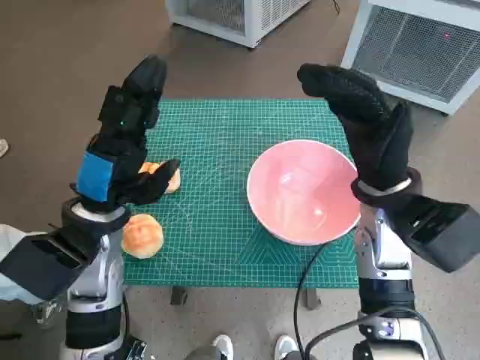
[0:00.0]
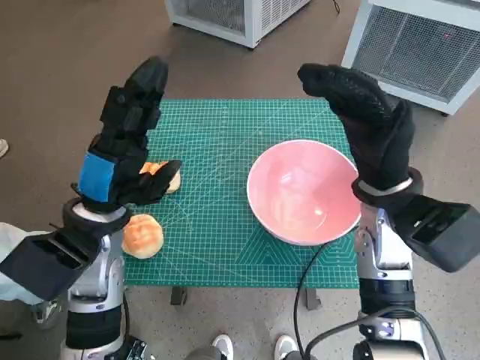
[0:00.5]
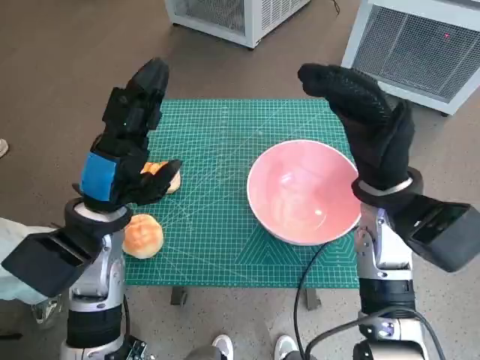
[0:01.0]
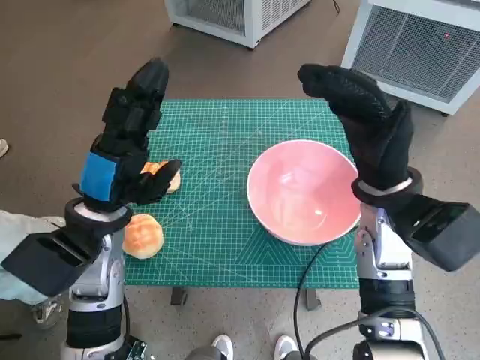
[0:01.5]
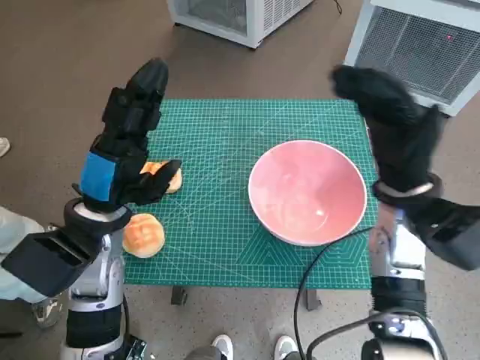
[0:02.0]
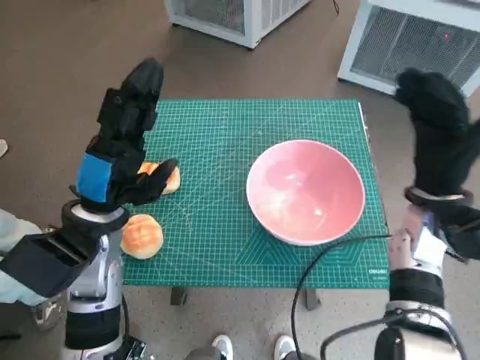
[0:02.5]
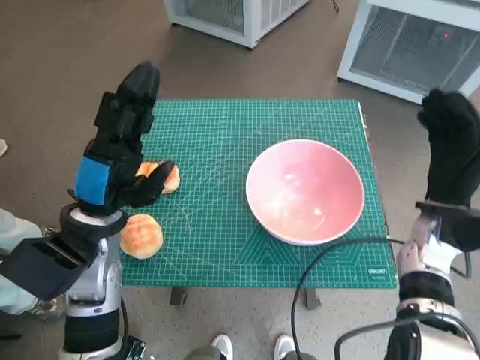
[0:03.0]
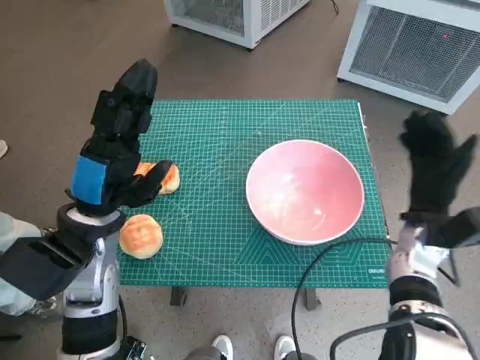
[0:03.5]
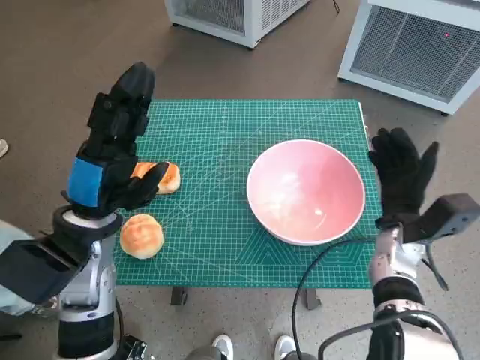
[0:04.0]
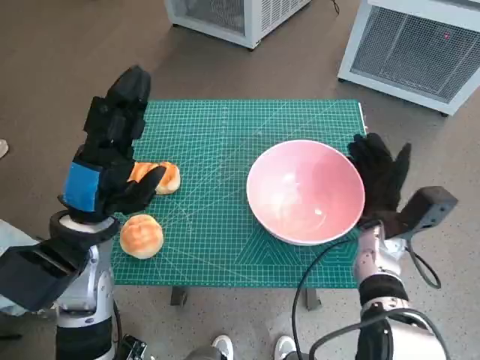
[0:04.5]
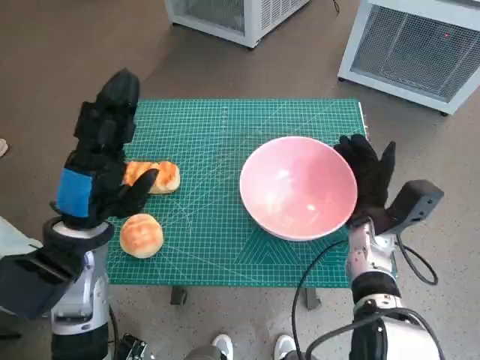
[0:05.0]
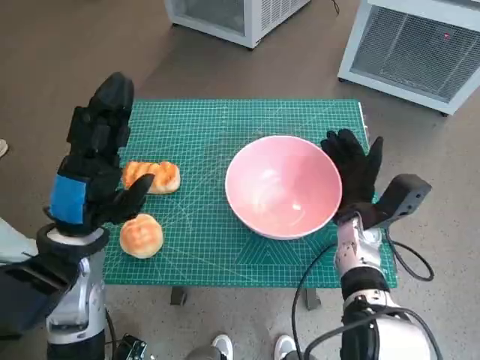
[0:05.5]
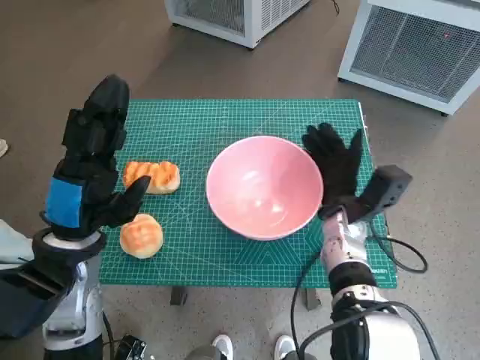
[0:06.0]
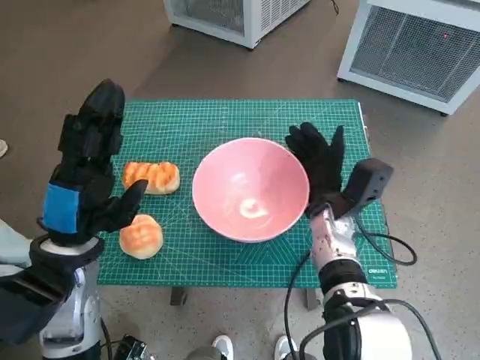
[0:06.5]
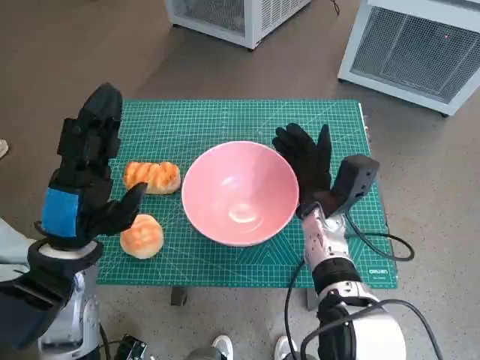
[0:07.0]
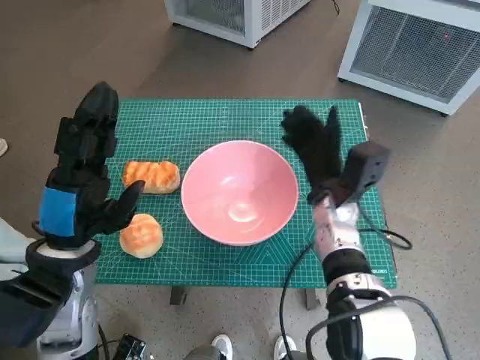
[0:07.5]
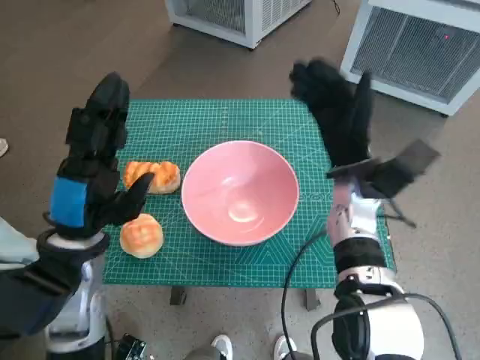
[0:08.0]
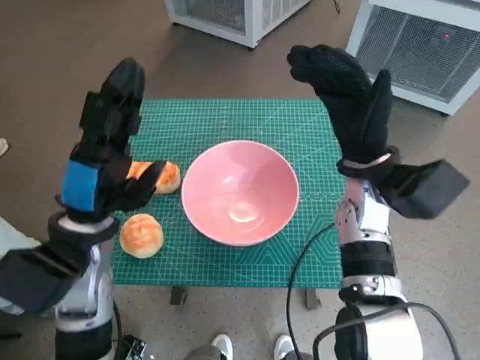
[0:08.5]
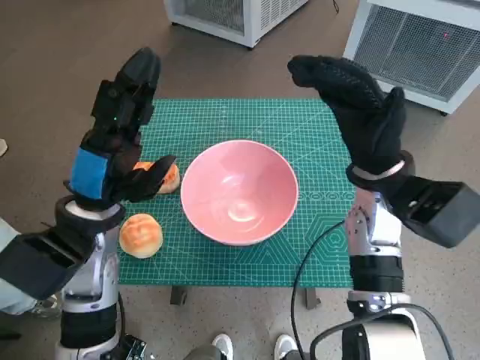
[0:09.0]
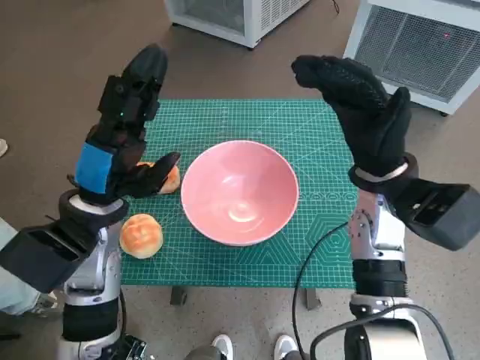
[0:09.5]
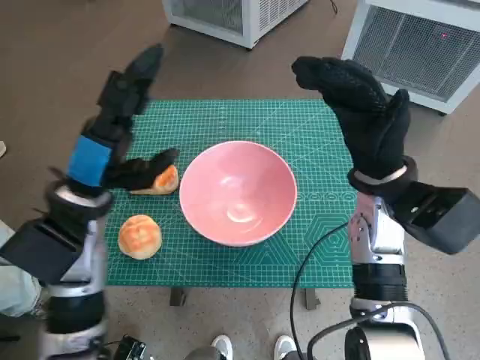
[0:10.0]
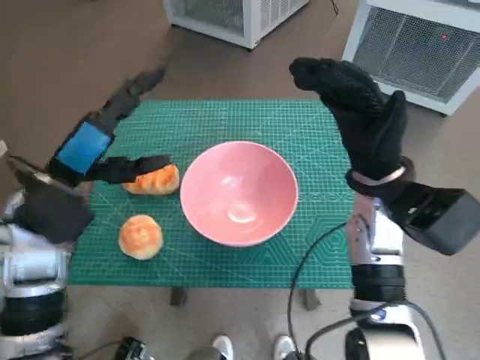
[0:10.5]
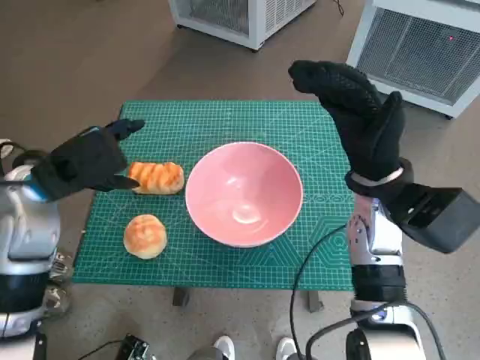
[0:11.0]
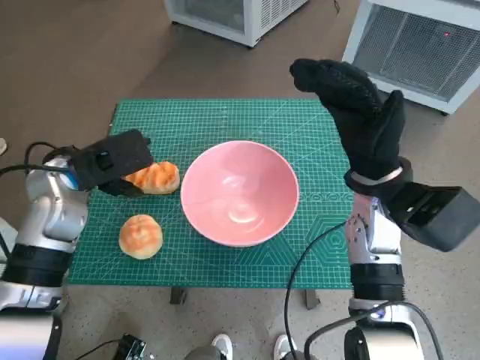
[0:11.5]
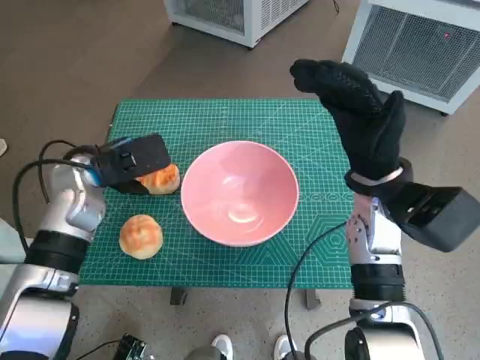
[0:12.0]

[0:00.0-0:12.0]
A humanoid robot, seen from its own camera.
Task of the whole recording: Push the bowl into the center of the table and put the bread into the bowl.
Step, 0:00.0 to 0:07.0: Move the pink bowl to the center of table with right hand.
0:02.0 to 0:04.0: The right hand is displaced downward by about 10 cm.
0:04.0 to 0:06.0: The right hand shifts roughly 10 cm to the left.
0:06.0 to 0:08.0: The right hand is displaced upward by some 5 cm.
0:08.0 to 0:10.0: The left hand moves roughly 5 cm. The right hand ends up some 5 cm from where it was.
0:10.0 to 0:12.0: The left hand travels forward by about 5 cm.

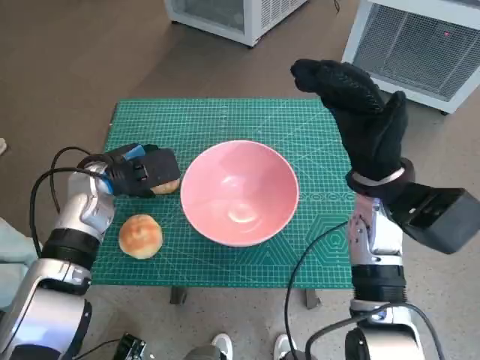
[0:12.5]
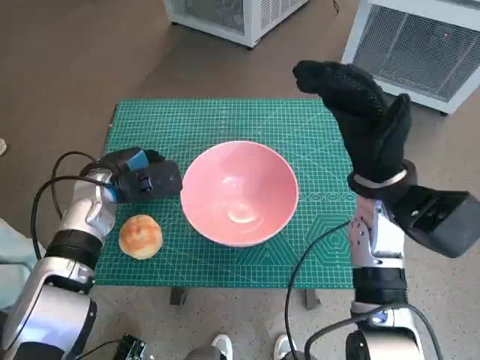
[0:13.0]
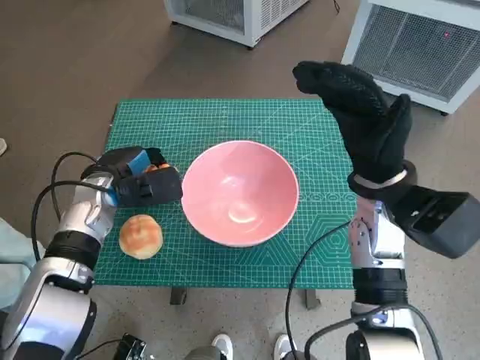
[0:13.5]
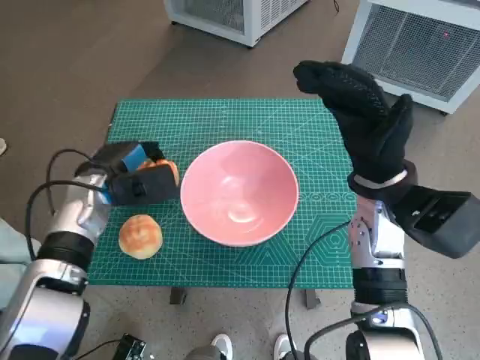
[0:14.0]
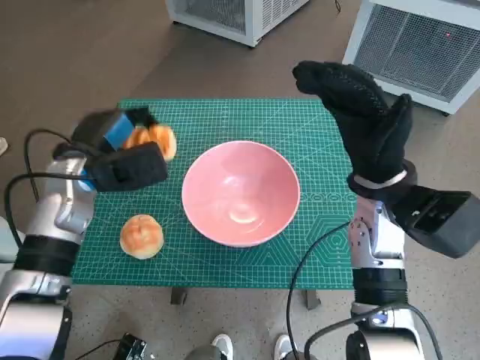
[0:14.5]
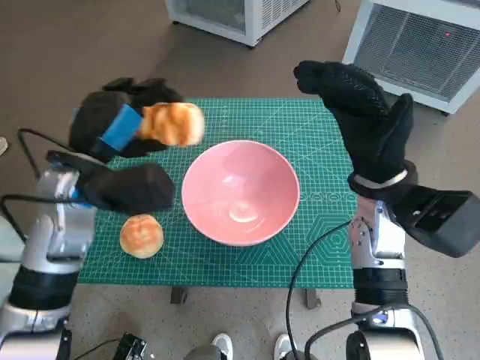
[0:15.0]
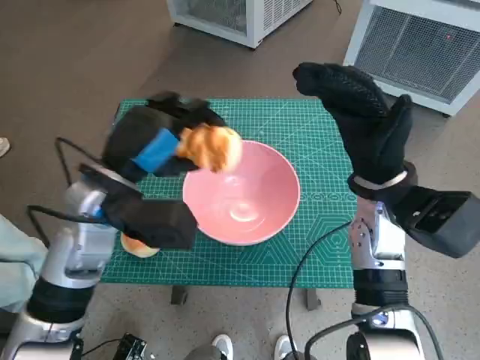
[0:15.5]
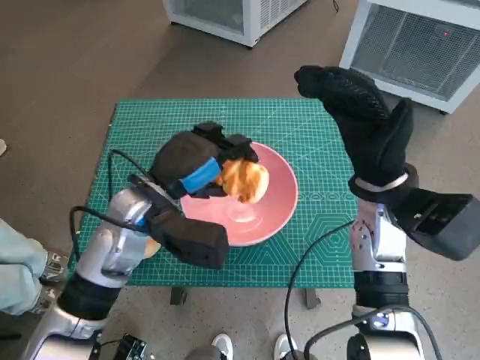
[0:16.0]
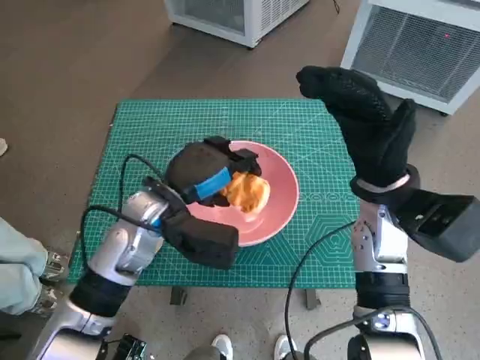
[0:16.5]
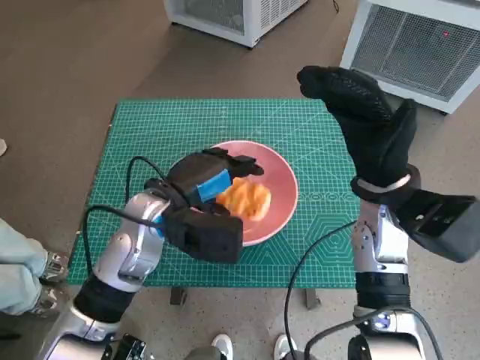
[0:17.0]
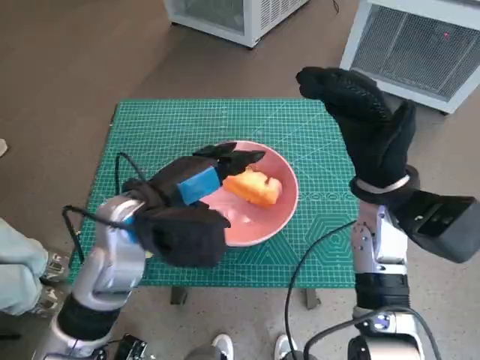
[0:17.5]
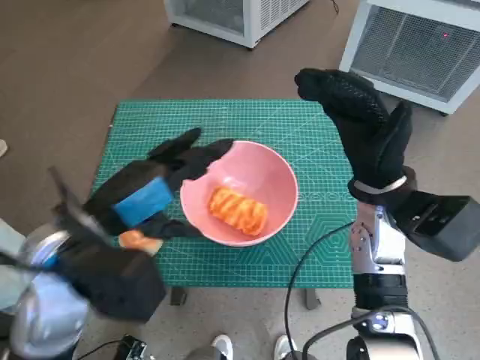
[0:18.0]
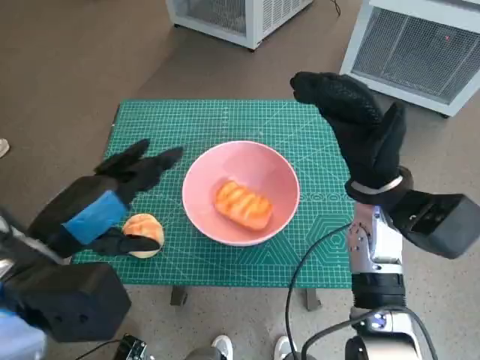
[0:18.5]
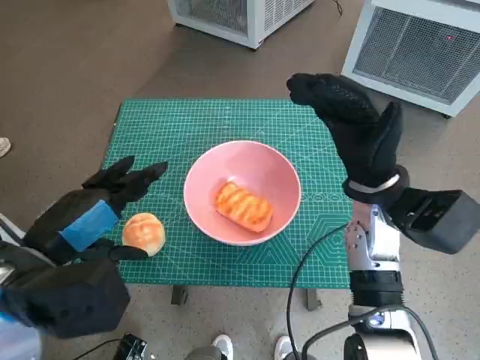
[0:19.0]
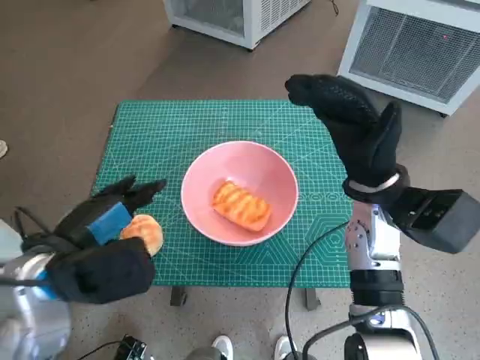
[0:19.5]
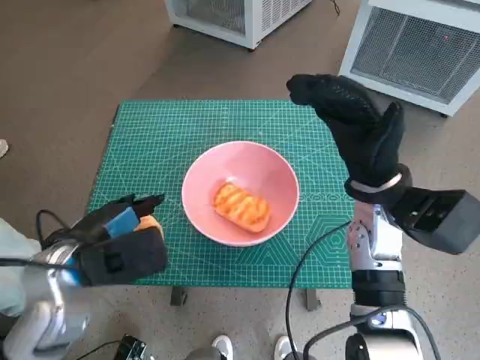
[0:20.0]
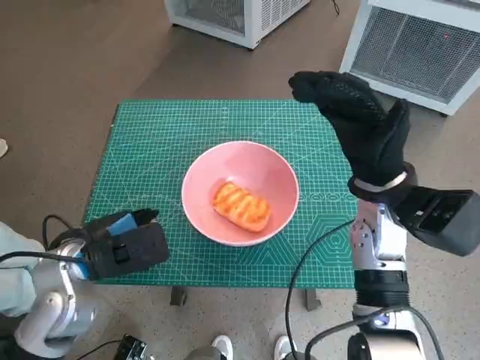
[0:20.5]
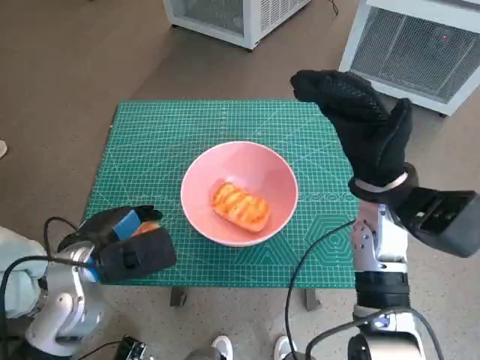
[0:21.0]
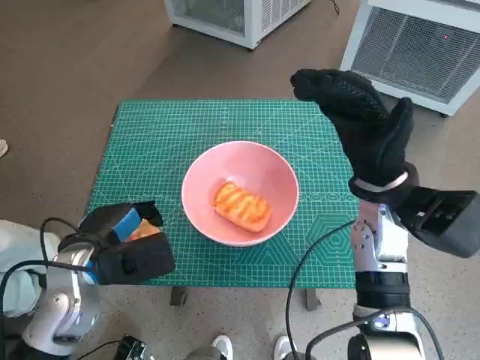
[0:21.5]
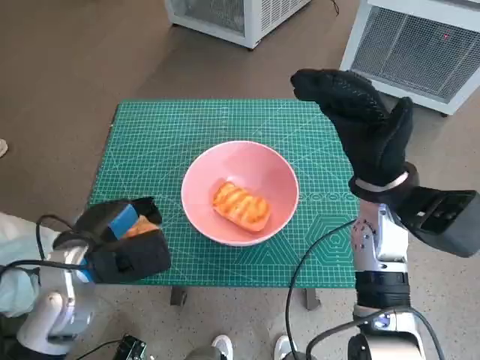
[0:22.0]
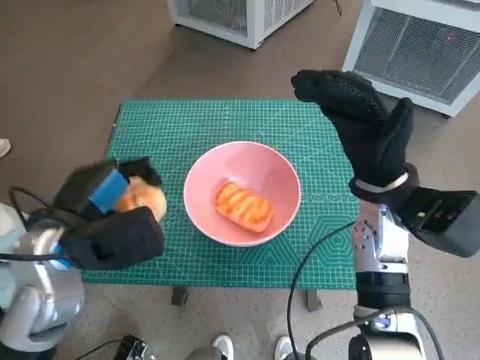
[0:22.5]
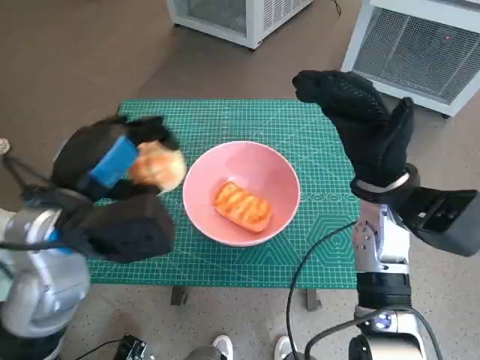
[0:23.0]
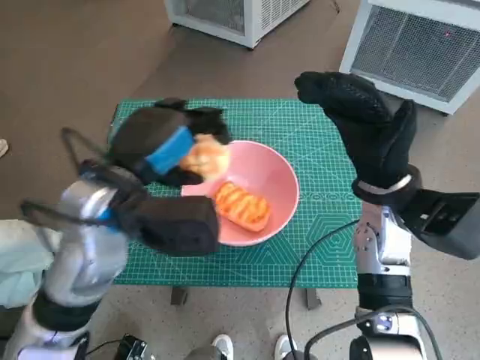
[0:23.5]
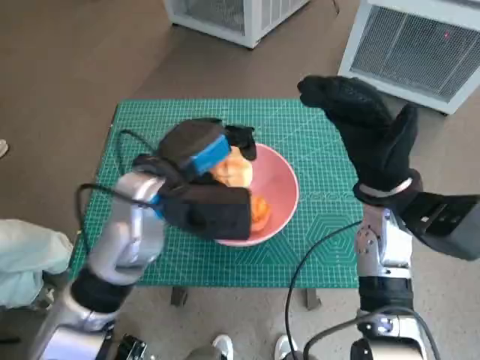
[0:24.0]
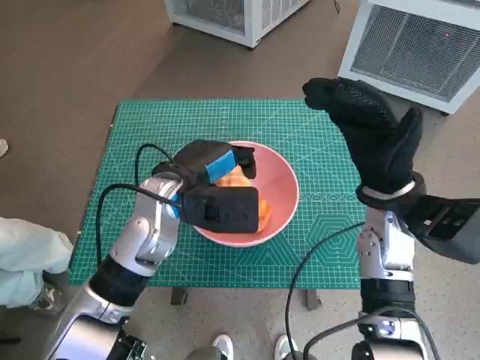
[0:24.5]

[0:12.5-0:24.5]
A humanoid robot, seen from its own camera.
Task of the whole recording: Push the bowl into the center of the table and put the bread into the bowl.
Step, 0:13.0 to 0:17.0: Place the long bread in pink bowl with left hand.
Step, 0:17.5 to 0:20.5: Grasp the round bread with left hand.
0:14.5 to 0:16.5: The left hand goes approximately 10 cm to the right.
0:16.5 to 0:18.5: The left hand goes about 15 cm backward, upward and to the left.
0:18.5 to 0:20.5: The left hand moves downward, roughly 10 cm.
0:22.5 to 0:24.5: The left hand moves to the right and forward, roughly 15 cm.

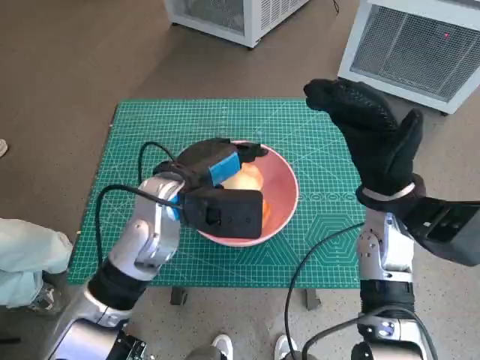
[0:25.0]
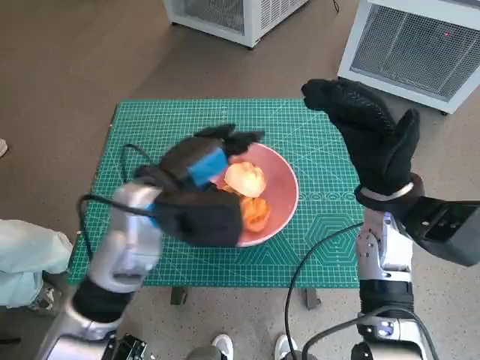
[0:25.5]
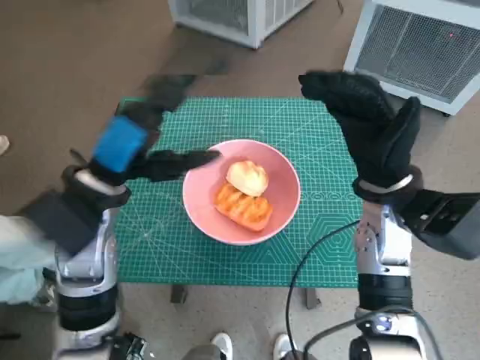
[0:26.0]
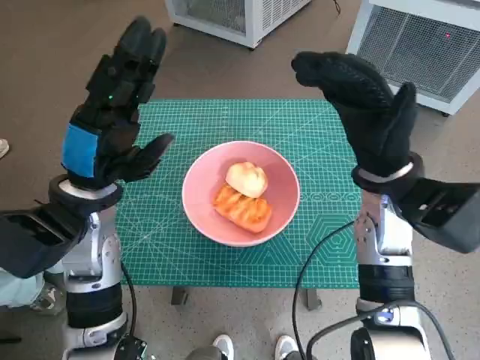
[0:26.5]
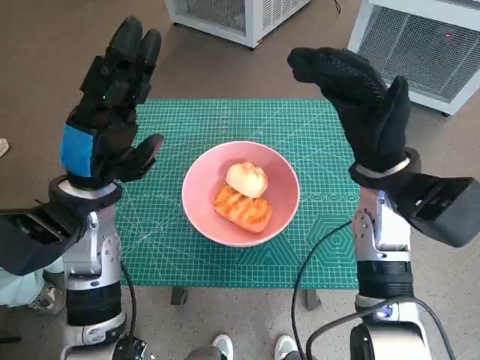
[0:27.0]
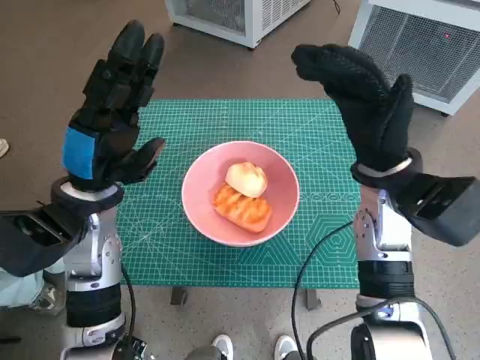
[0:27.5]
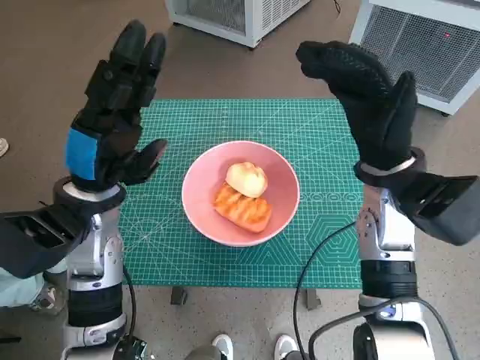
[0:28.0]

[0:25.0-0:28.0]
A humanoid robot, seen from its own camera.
Task of the whole recording: Push the bowl into the center of the table and put the bread into the bowl.
0:25.0 to 0:26.5: The left hand travels to the left by approximately 10 cm.
0:26.5 to 0:28.0: Both hands stay put.
